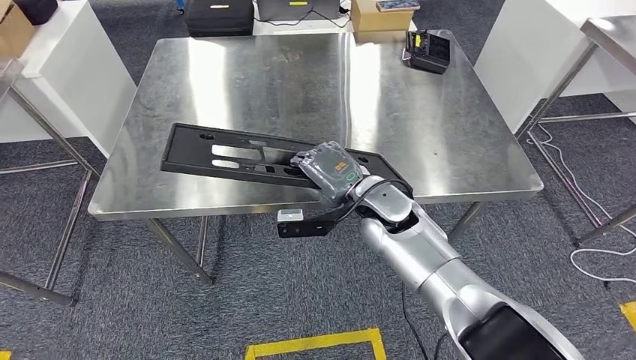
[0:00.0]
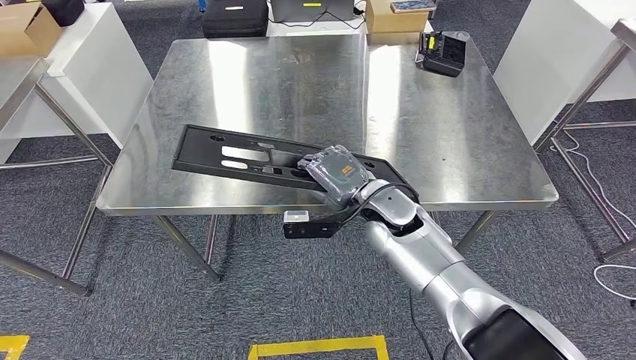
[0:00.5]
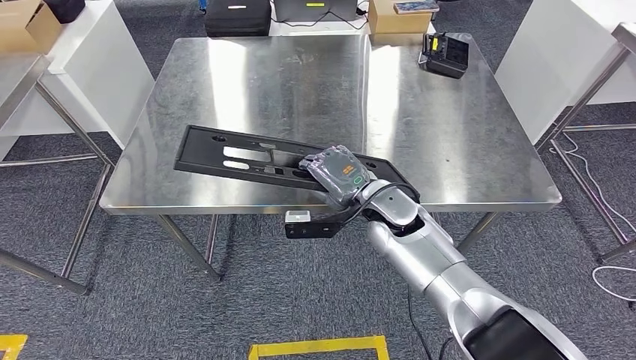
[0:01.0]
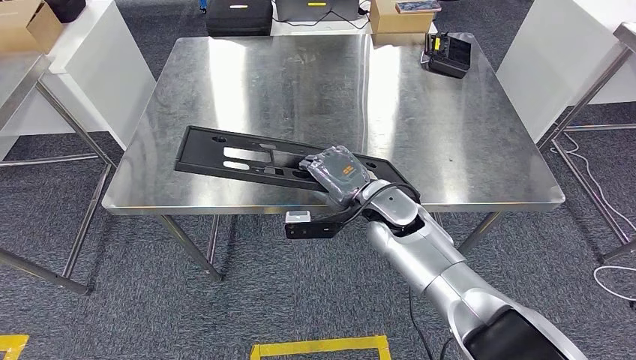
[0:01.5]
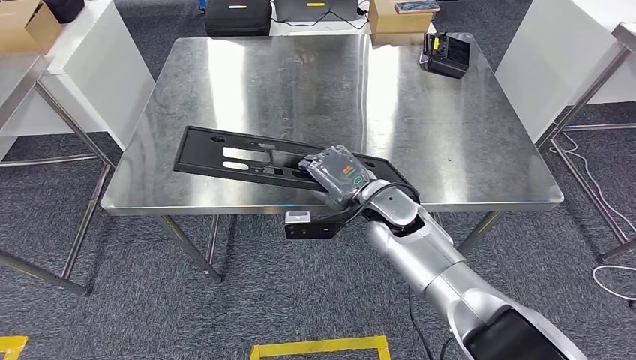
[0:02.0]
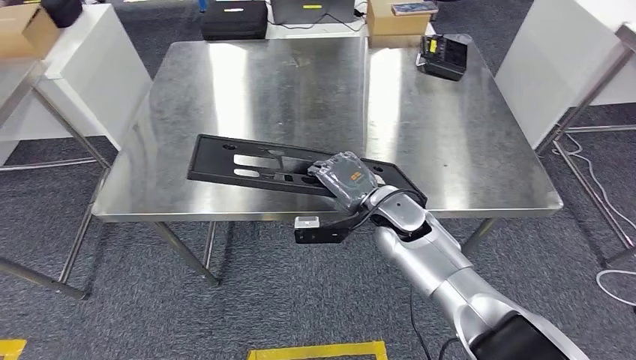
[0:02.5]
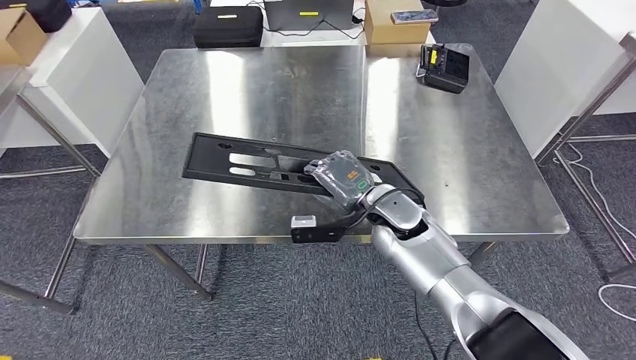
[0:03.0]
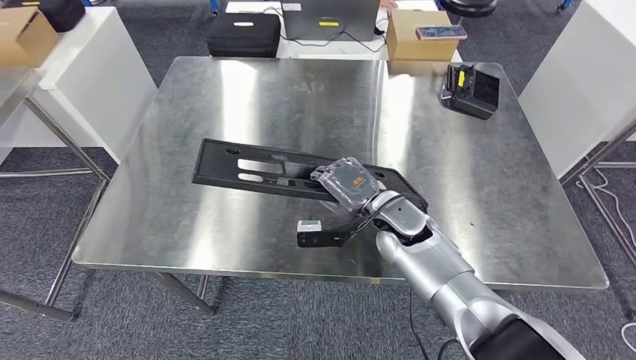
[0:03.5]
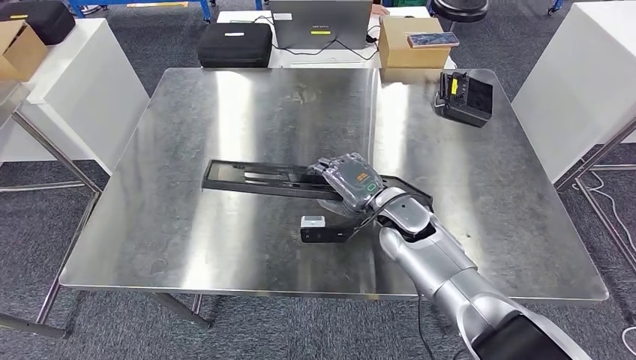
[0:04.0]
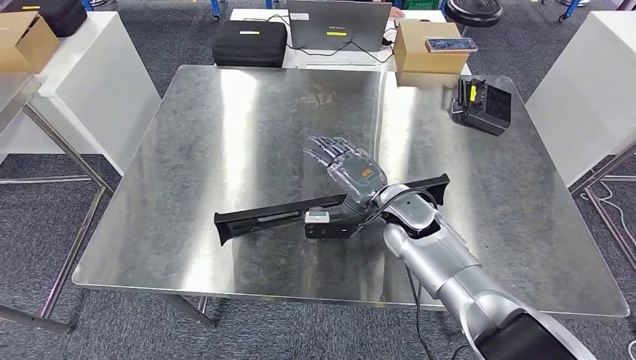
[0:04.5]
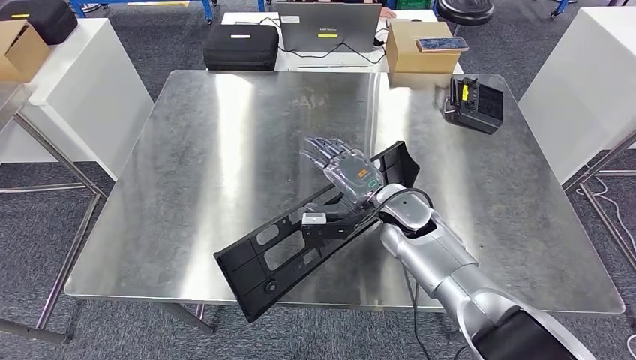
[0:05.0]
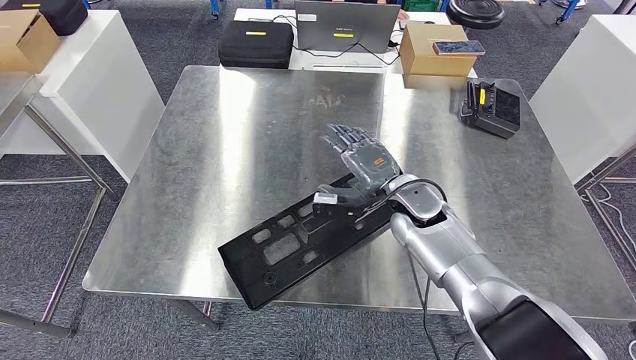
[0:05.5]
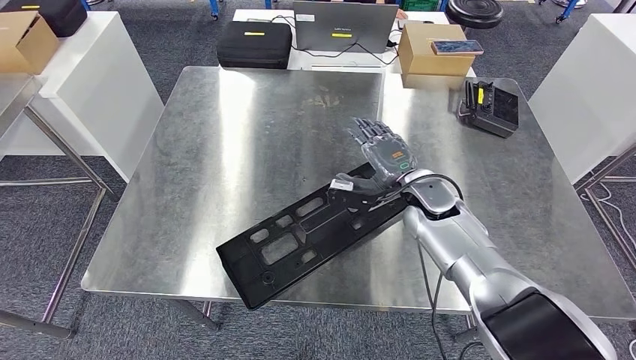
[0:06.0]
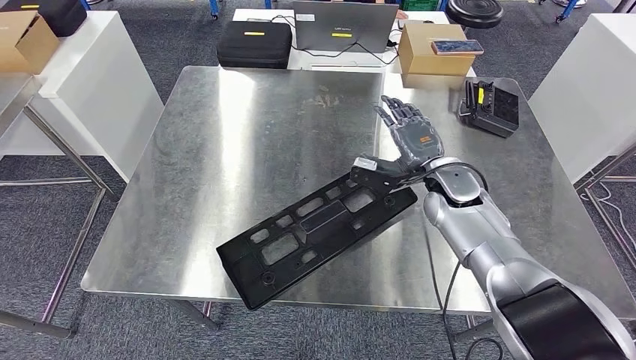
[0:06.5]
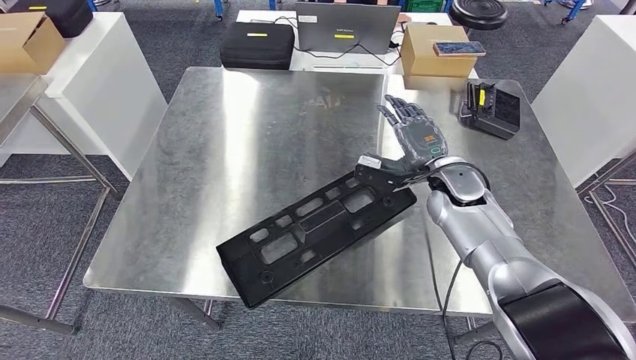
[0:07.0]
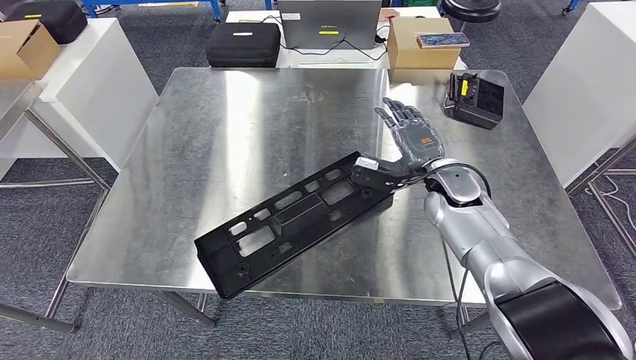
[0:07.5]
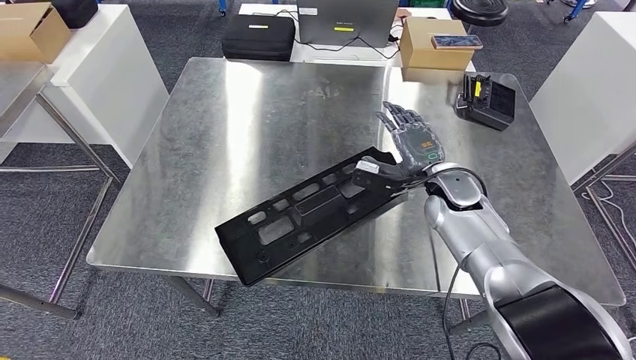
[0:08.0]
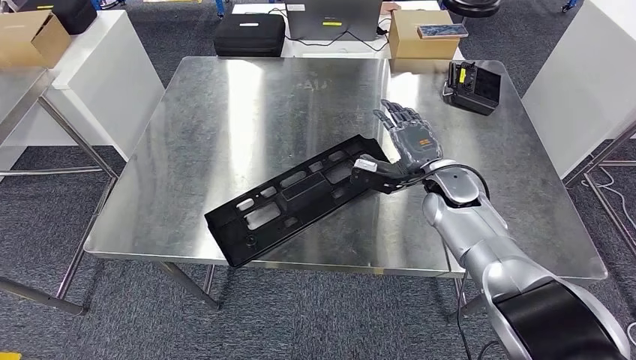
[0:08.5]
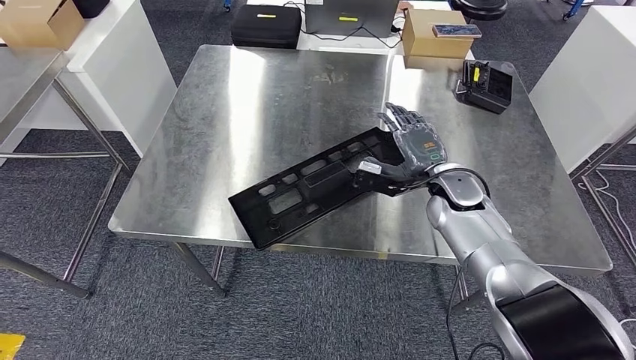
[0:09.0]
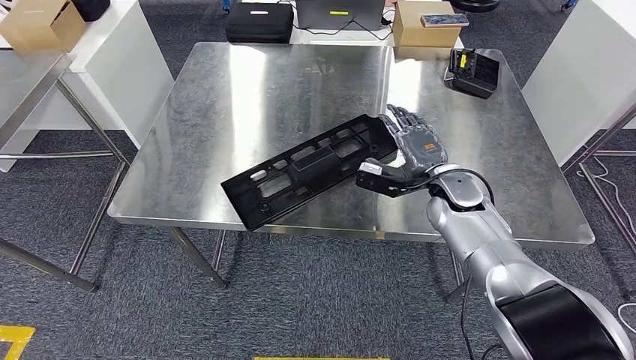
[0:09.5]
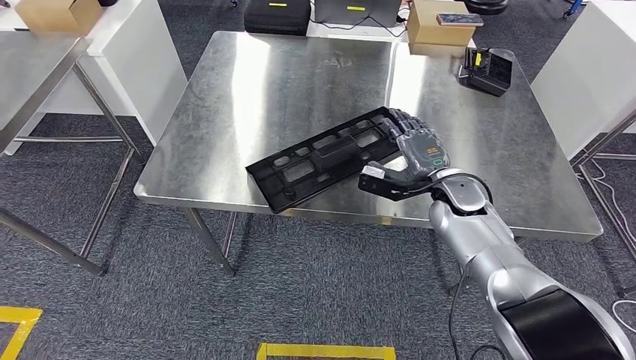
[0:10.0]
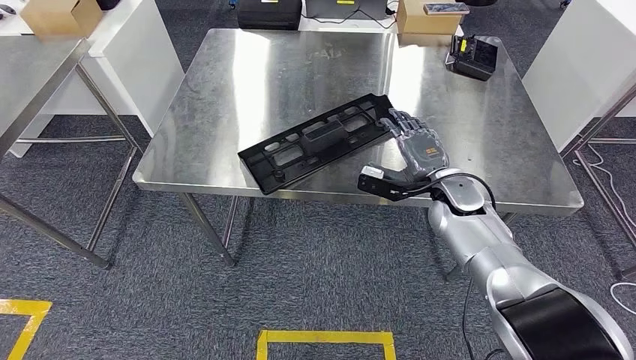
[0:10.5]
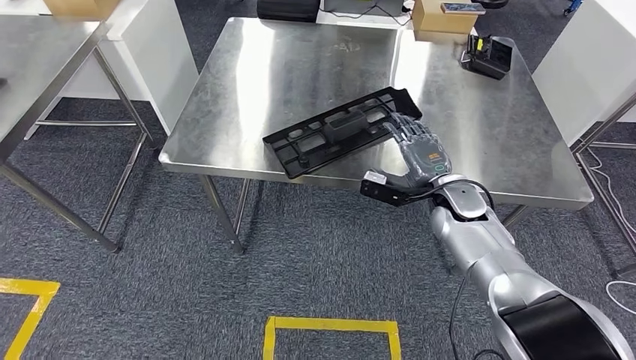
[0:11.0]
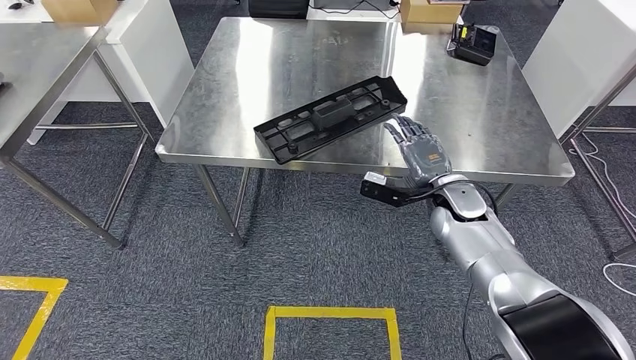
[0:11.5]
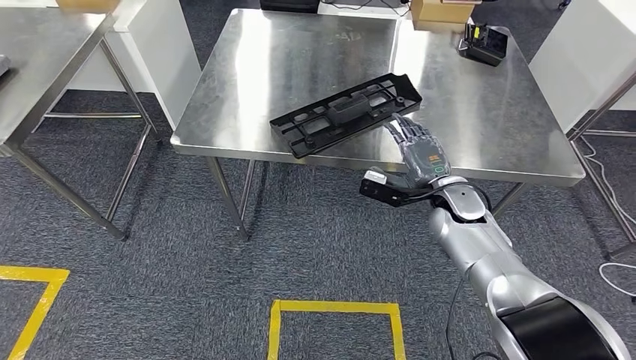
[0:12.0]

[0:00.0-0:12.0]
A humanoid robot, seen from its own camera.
Step, 0:00.0 to 0:09.5: Insert the large material into the corresponding slot on the workbench.

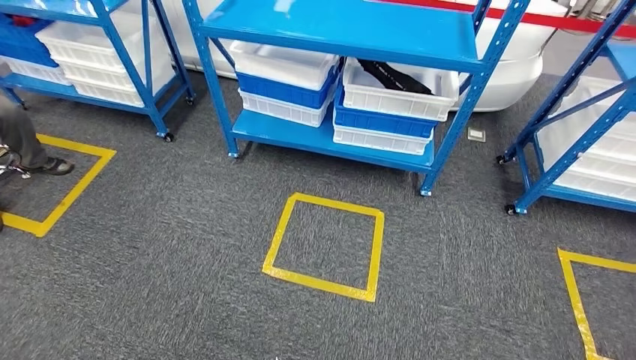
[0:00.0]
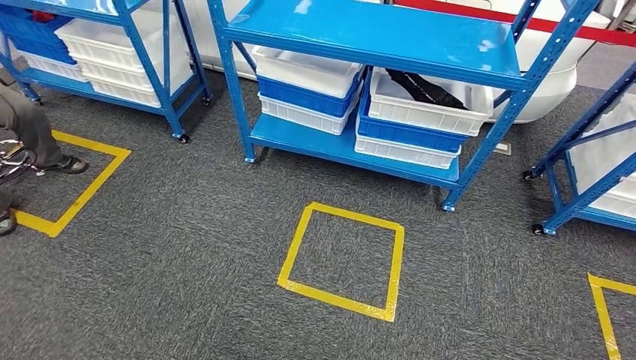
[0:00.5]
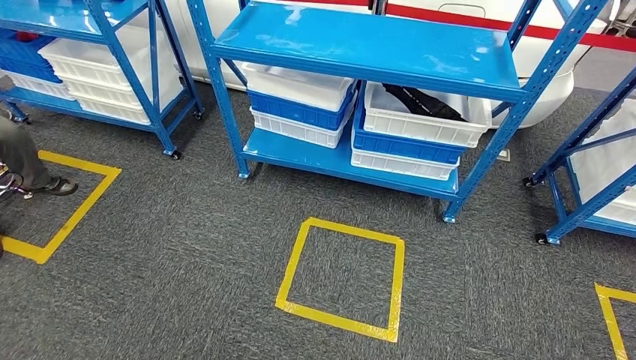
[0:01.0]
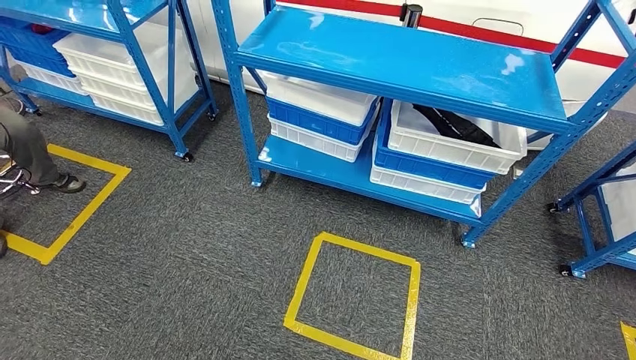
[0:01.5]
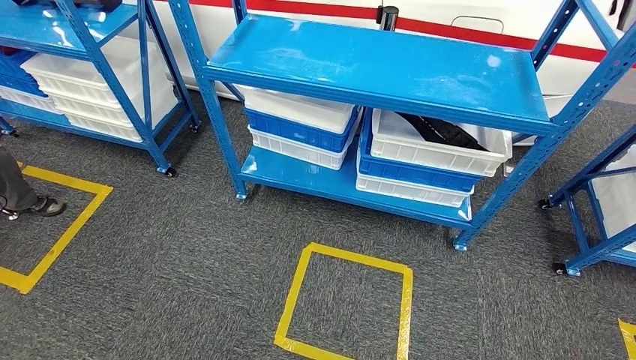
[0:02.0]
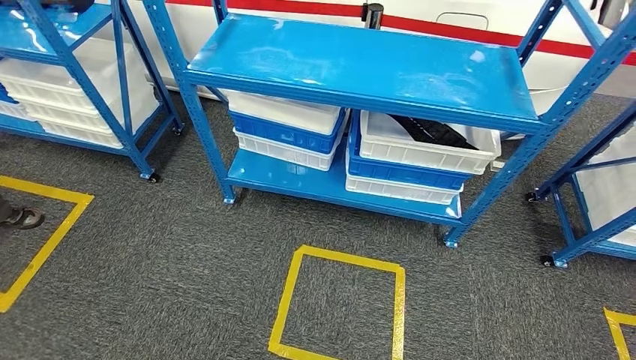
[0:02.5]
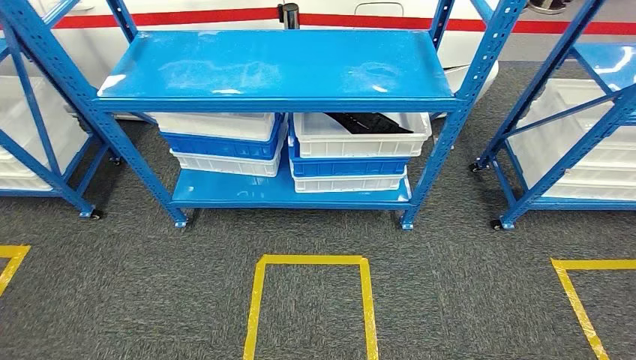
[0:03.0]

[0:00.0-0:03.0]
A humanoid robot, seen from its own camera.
Step, 0:00.0 to 0:03.0: Move to the initial position of the shelf.
